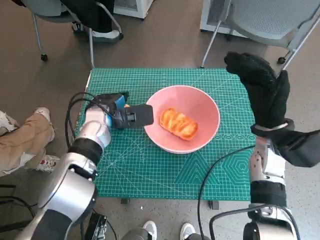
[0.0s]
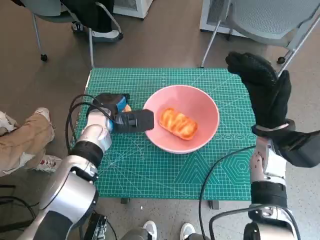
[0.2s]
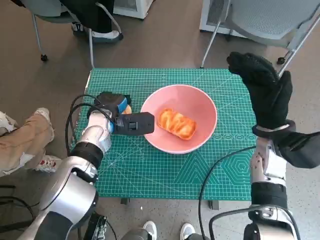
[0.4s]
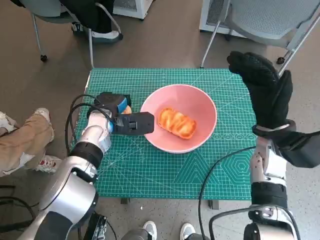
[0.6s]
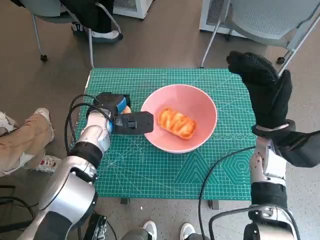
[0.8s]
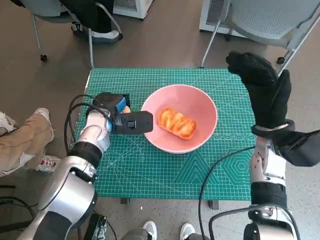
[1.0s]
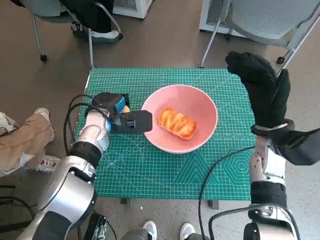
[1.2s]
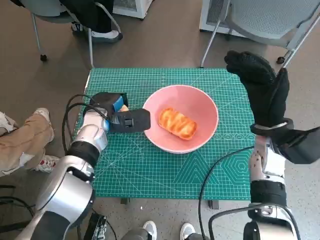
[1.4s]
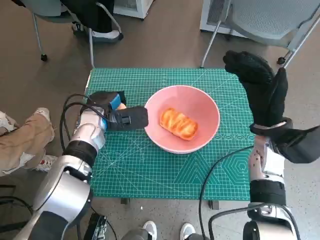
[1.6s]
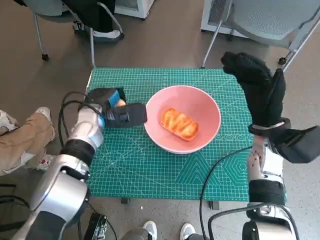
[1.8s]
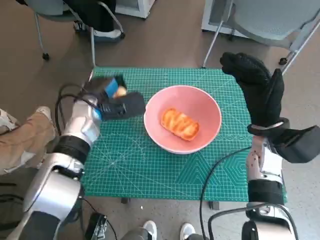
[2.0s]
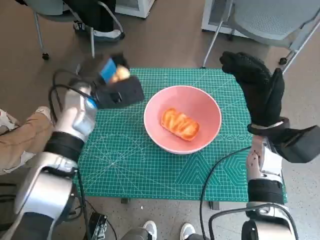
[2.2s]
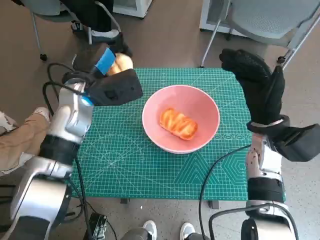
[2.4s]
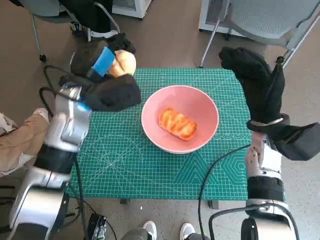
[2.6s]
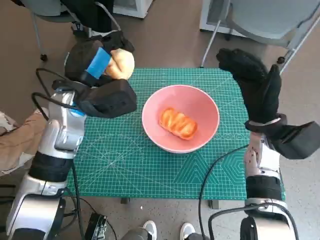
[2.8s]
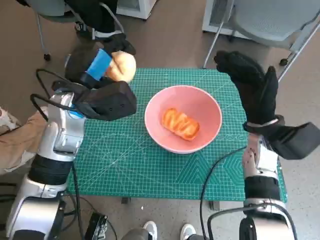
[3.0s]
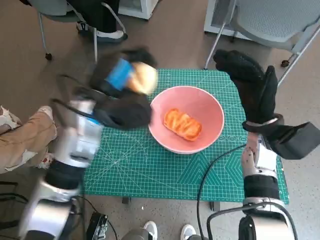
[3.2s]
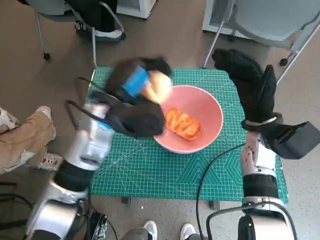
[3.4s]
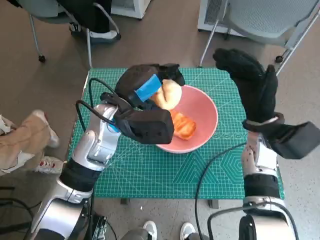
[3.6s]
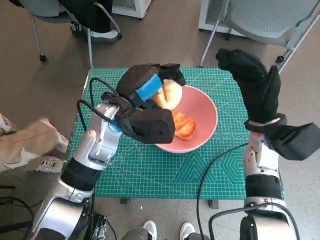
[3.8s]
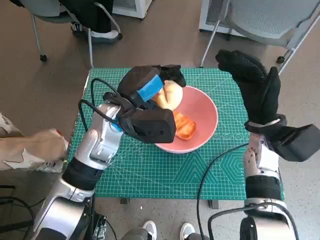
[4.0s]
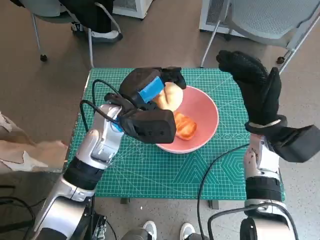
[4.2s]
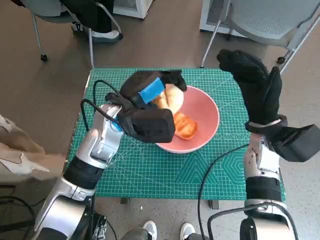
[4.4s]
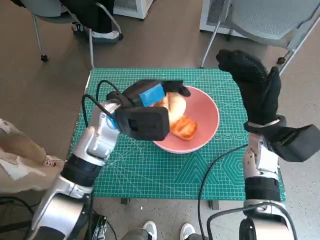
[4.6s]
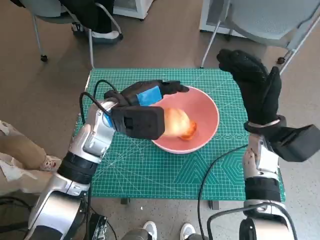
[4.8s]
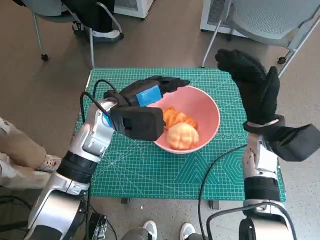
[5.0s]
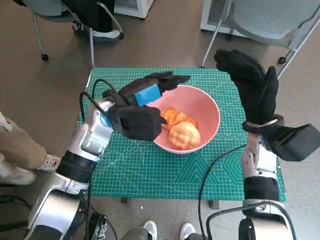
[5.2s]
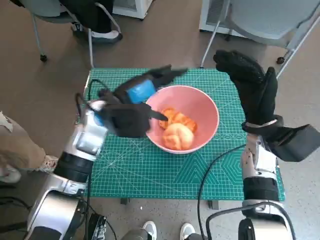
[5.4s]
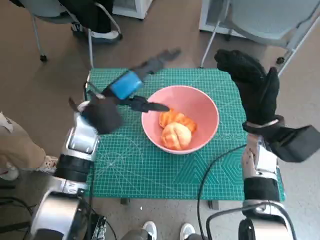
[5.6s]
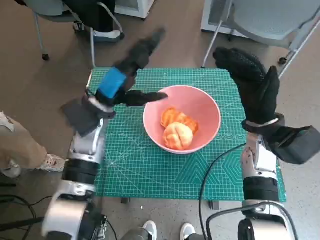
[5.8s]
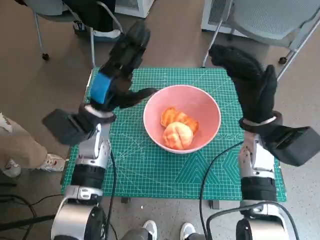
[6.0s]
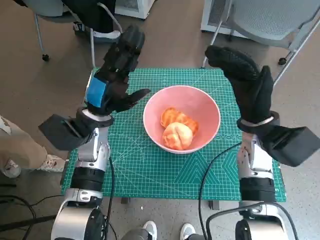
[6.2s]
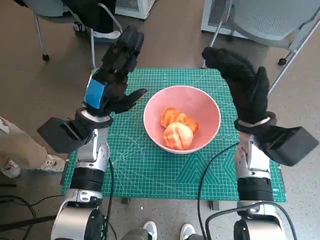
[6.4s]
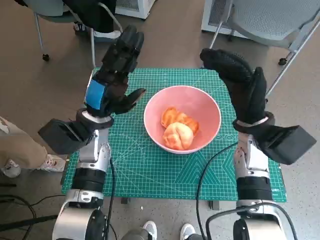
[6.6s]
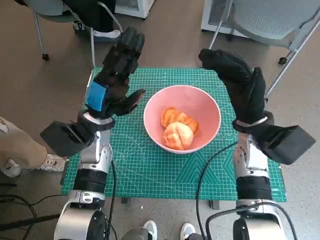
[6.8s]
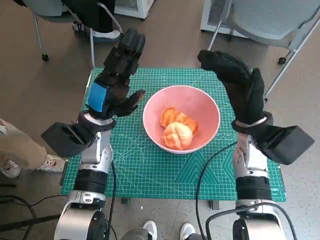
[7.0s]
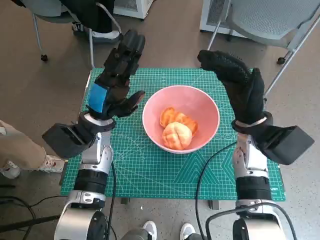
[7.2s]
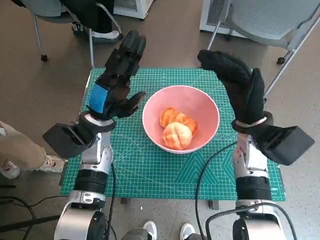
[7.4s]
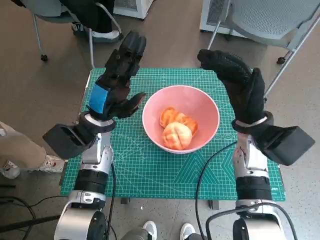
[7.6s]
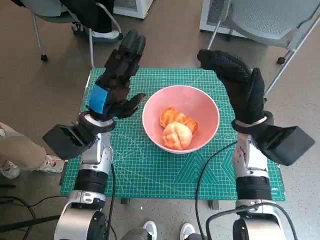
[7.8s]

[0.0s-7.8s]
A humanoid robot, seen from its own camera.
Step, 0.4s to 5.2s: Place the round bread in pink bowl with left hand.
0.0s to 1.6s: The hands move only a little.
1.6s to 3.2s: The left hand heads upward, covering about 10 cm.
4.6s to 6.2s: The left hand moves to the left, some 5 cm.
6.2s to 7.8s: Both hands stay put.

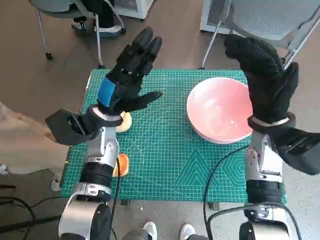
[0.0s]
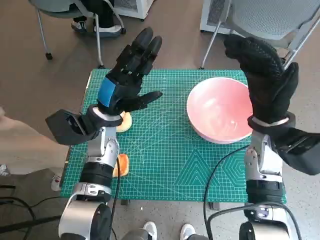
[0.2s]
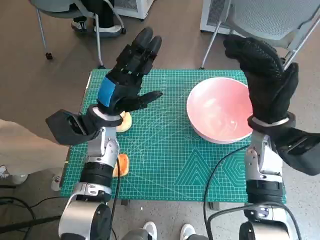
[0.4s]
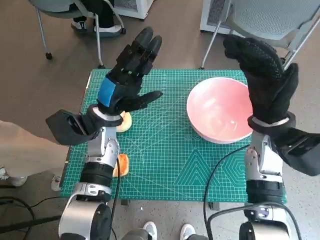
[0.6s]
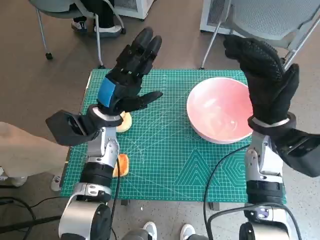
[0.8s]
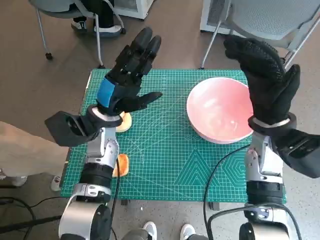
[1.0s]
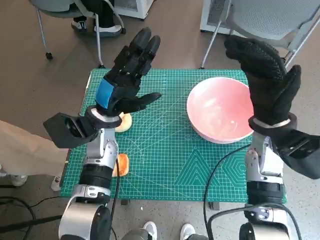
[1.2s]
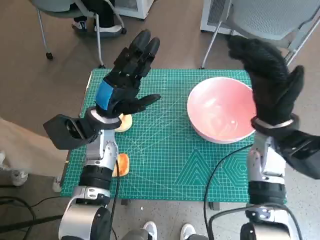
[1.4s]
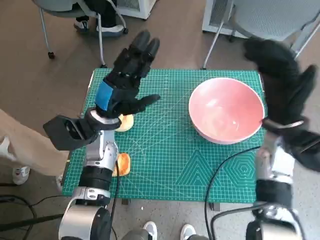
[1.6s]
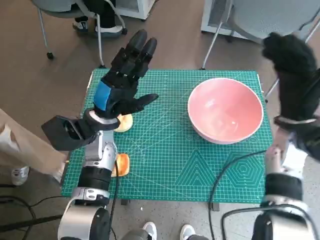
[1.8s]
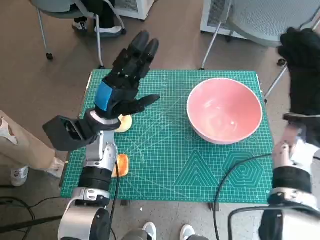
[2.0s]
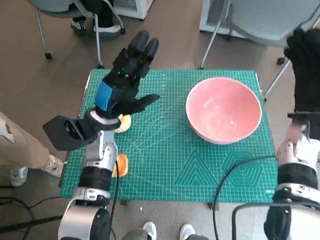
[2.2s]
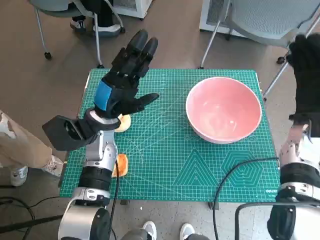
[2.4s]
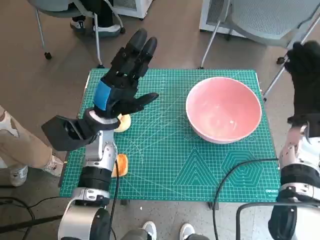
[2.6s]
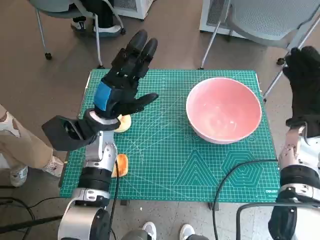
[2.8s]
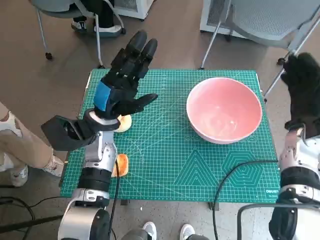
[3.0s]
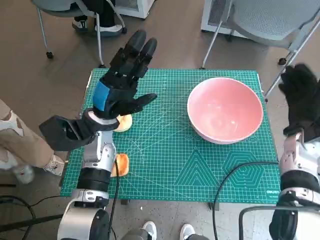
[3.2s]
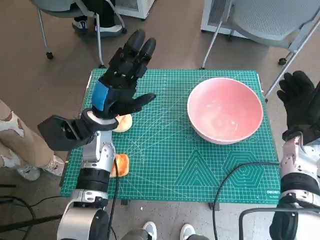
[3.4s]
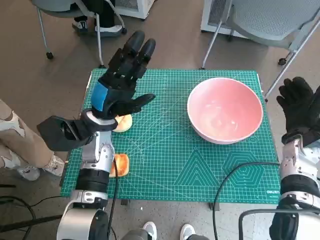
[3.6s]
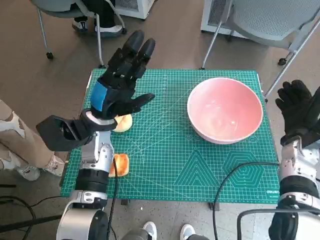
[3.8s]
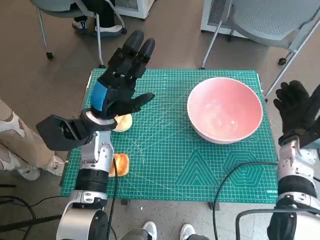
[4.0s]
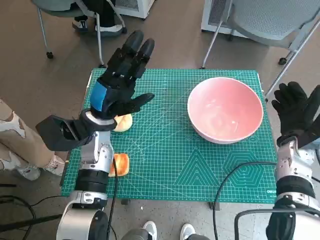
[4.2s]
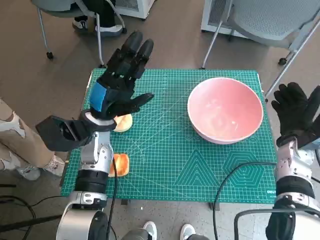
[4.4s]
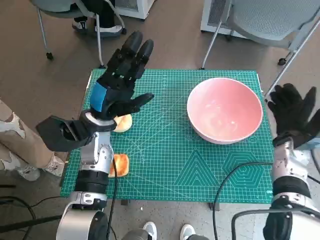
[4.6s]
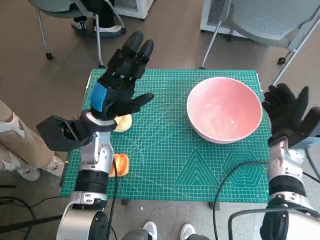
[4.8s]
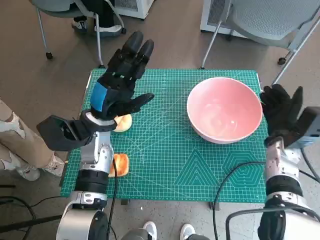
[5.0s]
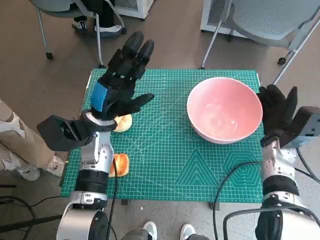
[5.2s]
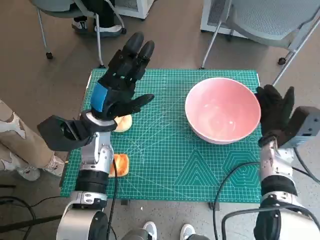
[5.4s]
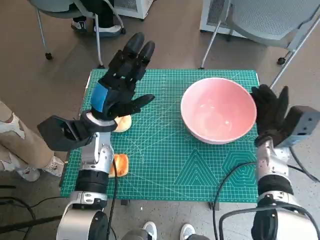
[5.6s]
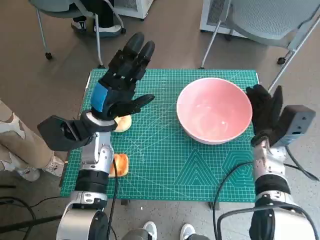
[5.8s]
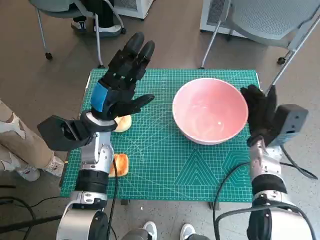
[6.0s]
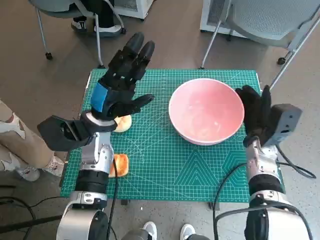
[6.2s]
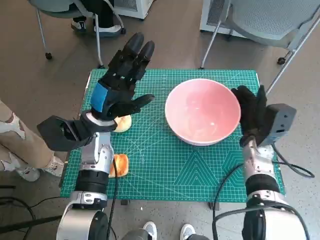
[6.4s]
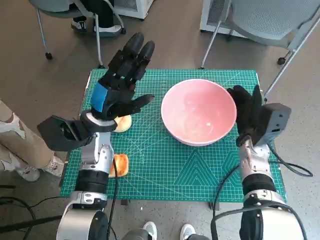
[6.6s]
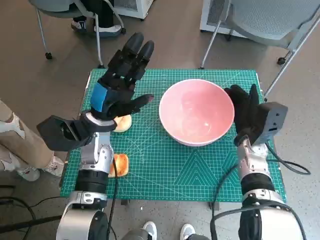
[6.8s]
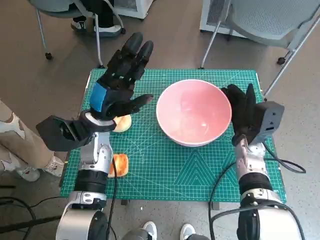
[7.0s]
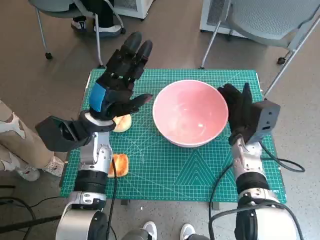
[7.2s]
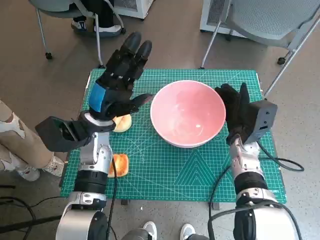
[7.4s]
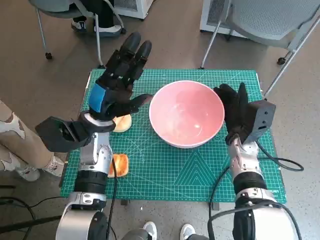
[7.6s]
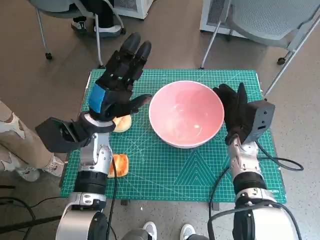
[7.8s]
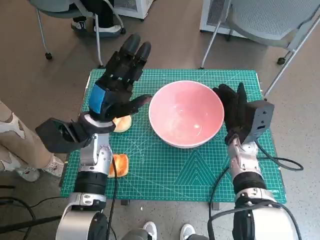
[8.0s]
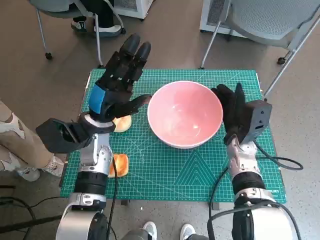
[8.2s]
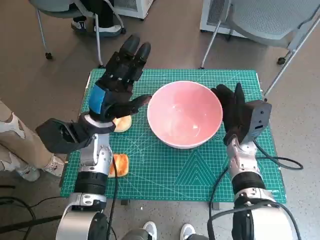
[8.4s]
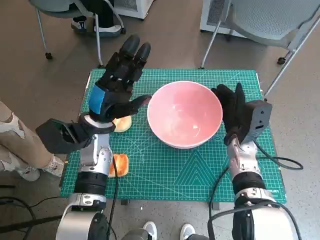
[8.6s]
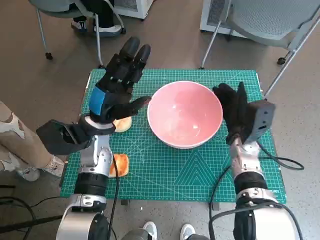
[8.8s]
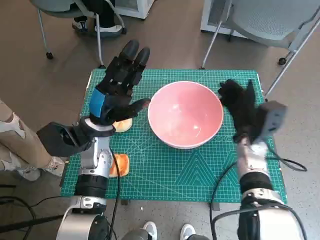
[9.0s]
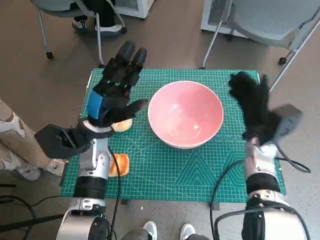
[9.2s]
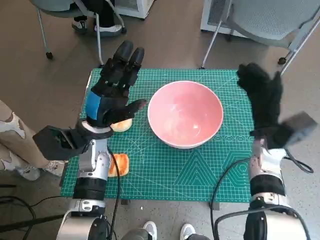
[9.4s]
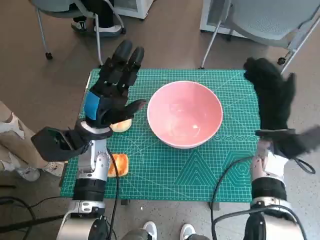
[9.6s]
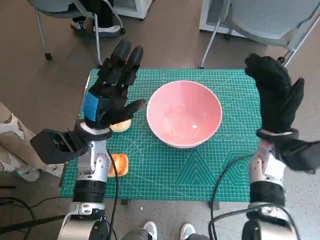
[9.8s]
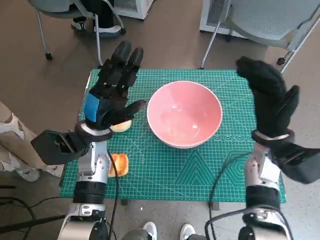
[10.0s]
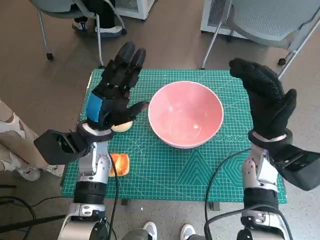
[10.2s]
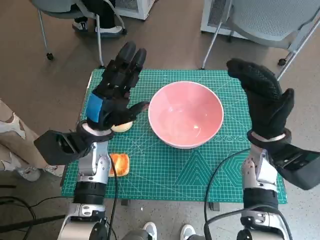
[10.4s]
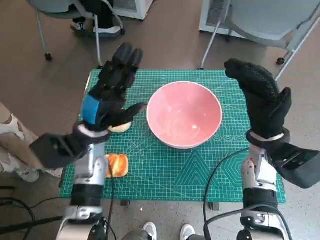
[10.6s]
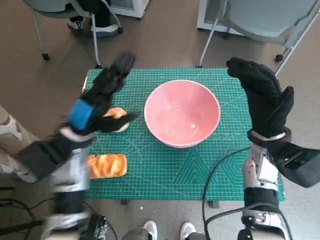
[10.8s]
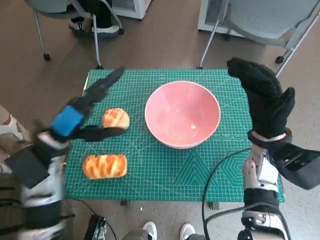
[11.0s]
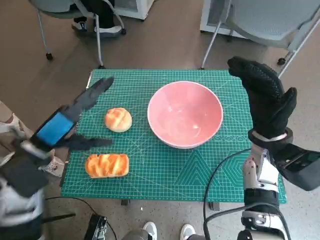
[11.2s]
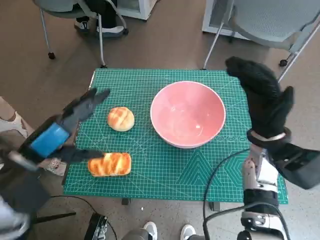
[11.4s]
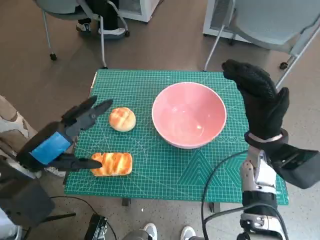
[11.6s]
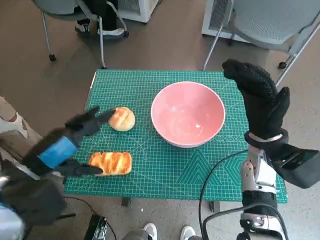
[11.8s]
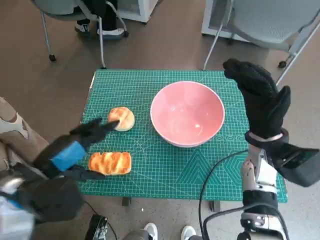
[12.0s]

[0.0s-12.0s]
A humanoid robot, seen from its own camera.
Step, 0.0s to 9.0s: Move the pink bowl to the center of table with right hand.
1.6s to 3.0s: The right hand goes some 5 cm to the right.
3.0s to 4.4s: There are only small adjustments of the hands.
4.4s to 6.0s: The right hand goes about 5 cm to the left.
7.6s to 9.0s: Neither hand changes place.
9.0s to 10.4s: The right hand travels upward by some 5 cm.
10.4s to 12.0s: The left hand shifts approximately 15 cm backward, to the left and upward.

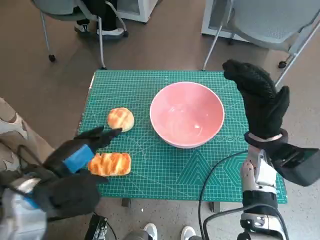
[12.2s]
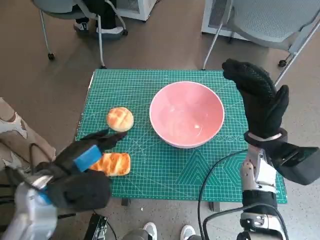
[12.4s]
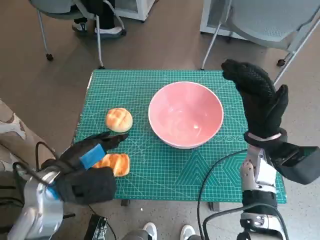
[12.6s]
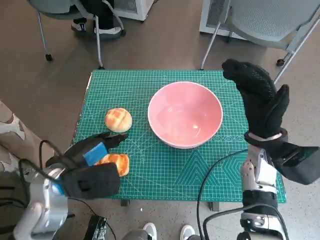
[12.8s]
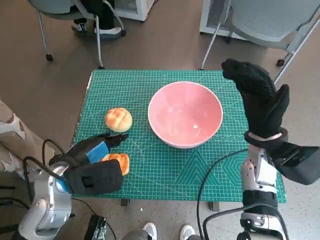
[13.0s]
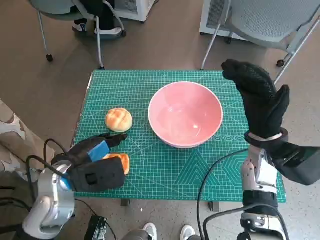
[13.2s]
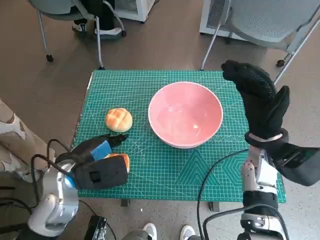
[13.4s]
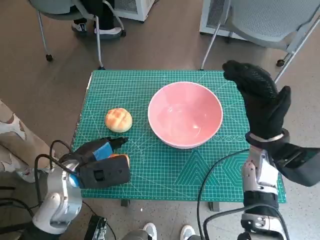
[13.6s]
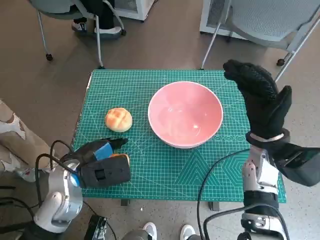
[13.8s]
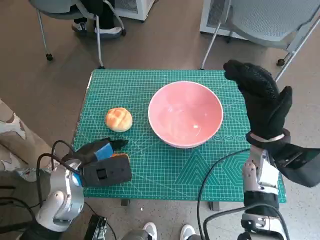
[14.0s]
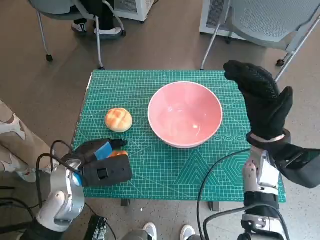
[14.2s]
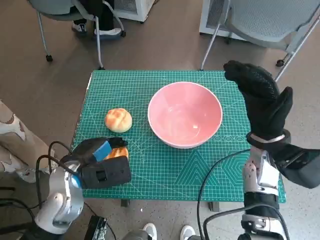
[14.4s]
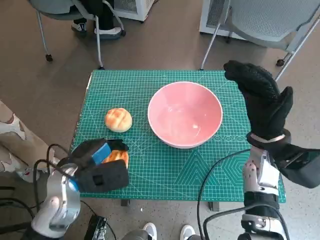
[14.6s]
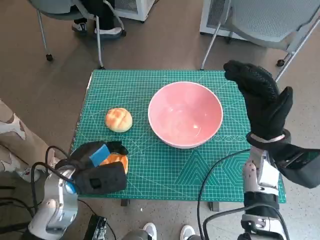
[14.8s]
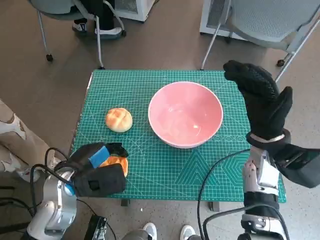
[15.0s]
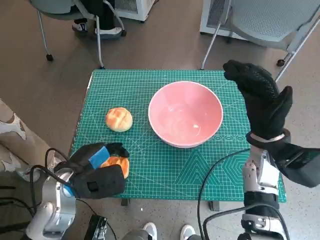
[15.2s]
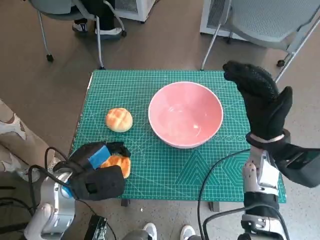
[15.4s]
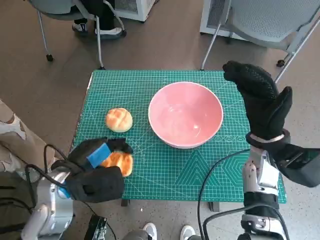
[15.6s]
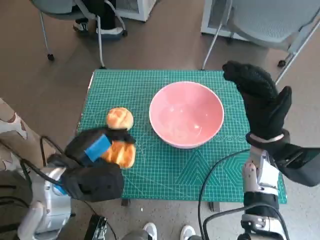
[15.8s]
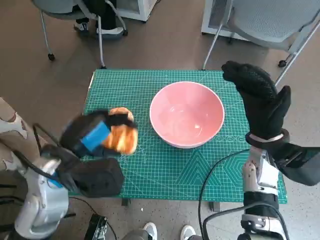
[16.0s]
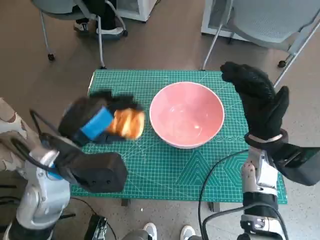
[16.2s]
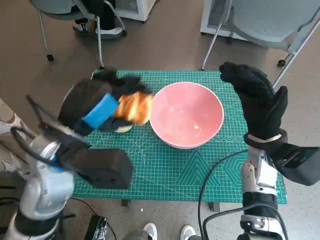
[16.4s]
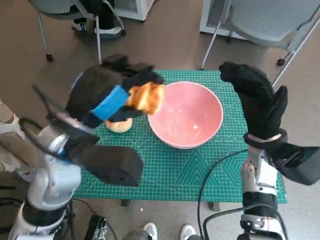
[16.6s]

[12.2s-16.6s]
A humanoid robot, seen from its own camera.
Step, 12.2s to 14.2s: Grasp the long bread with left hand.
12.2s to 13.6s: The left hand is displaced downward by roughly 5 cm.
13.6s to 15.2s: There are only small adjustments of the hands.
15.2s to 16.6s: The left hand heads upward and to the right, covering about 15 cm.
